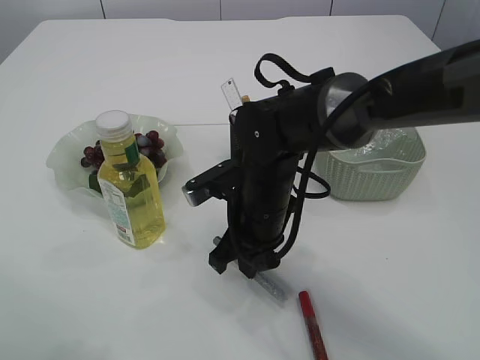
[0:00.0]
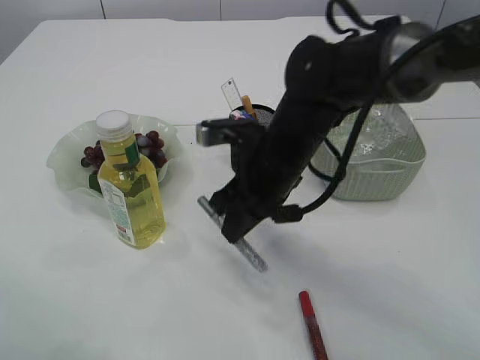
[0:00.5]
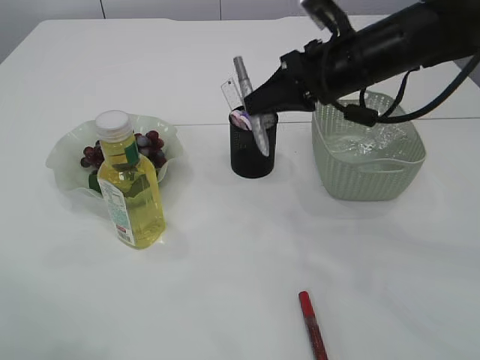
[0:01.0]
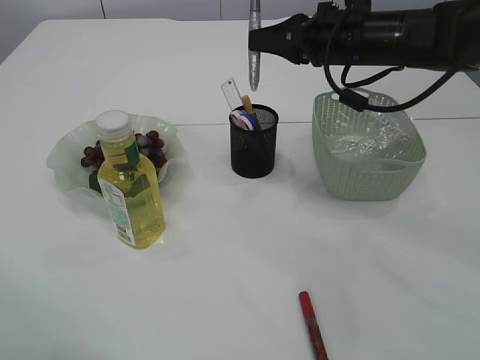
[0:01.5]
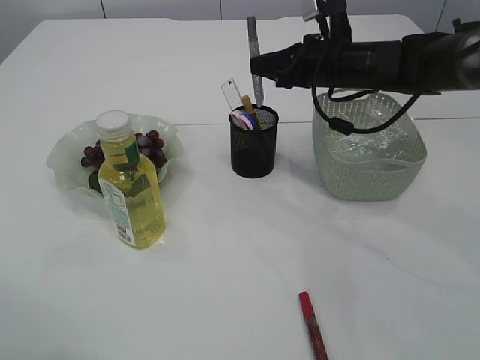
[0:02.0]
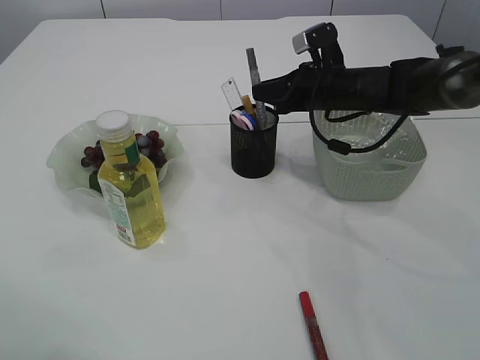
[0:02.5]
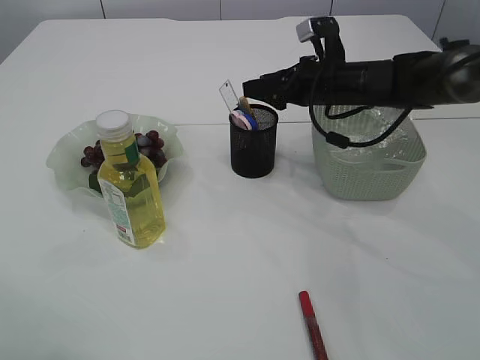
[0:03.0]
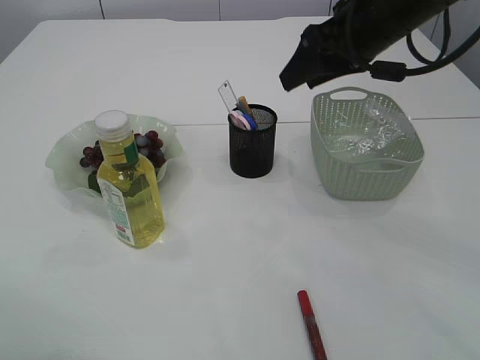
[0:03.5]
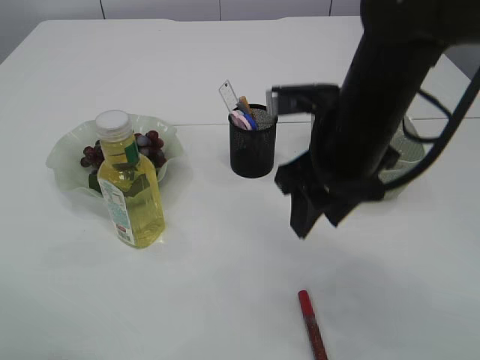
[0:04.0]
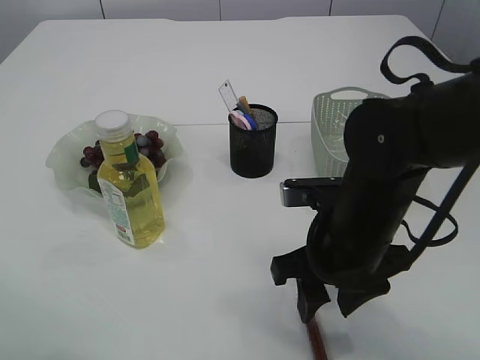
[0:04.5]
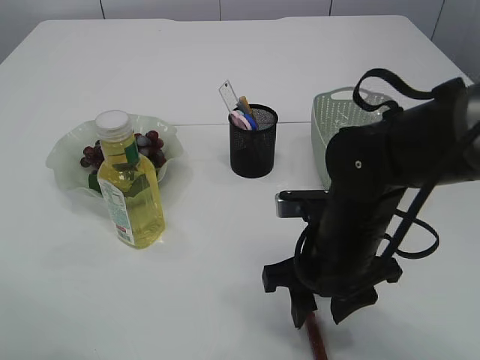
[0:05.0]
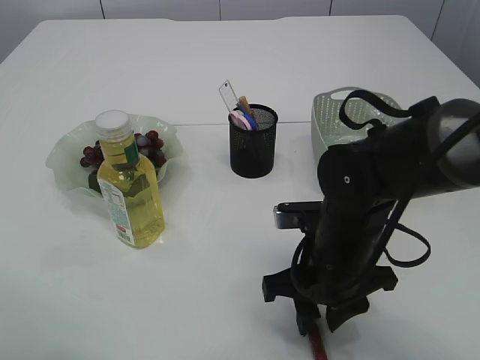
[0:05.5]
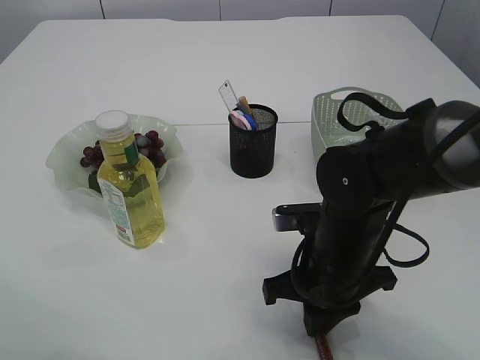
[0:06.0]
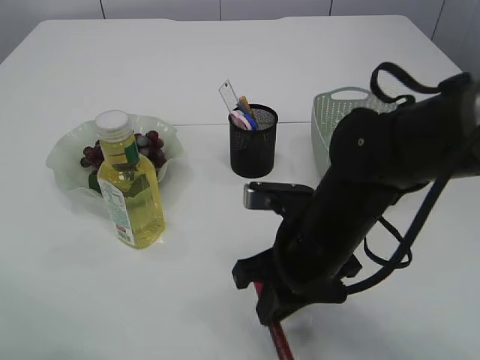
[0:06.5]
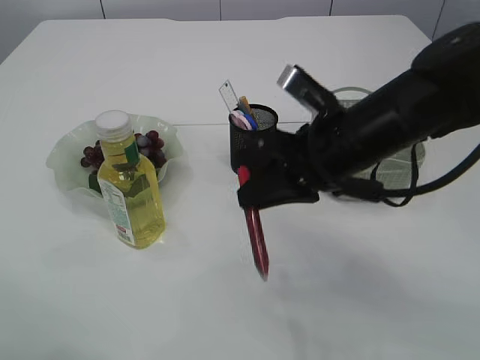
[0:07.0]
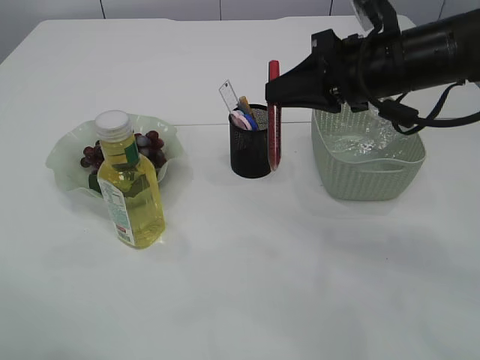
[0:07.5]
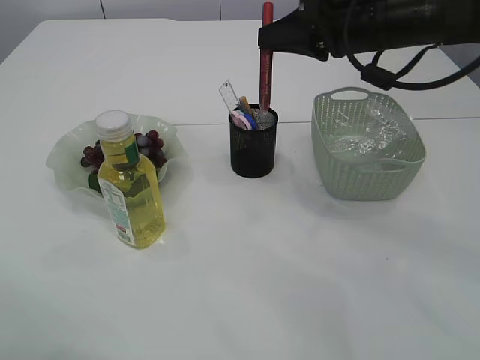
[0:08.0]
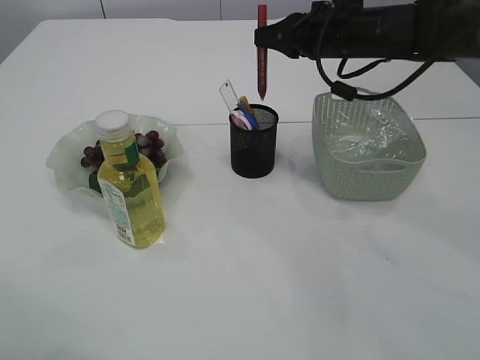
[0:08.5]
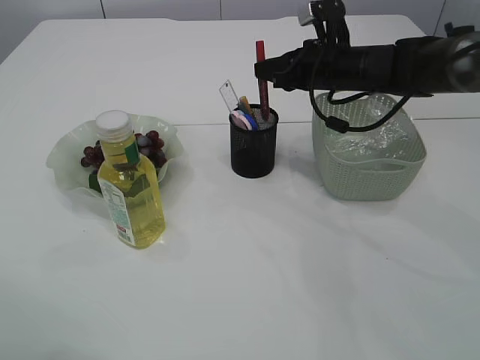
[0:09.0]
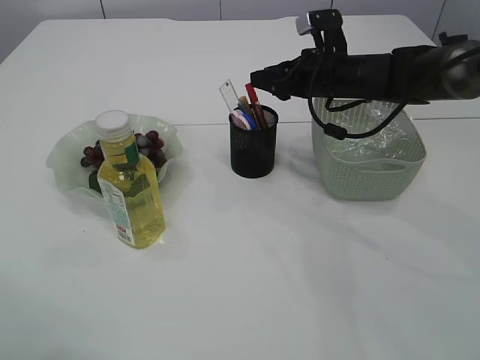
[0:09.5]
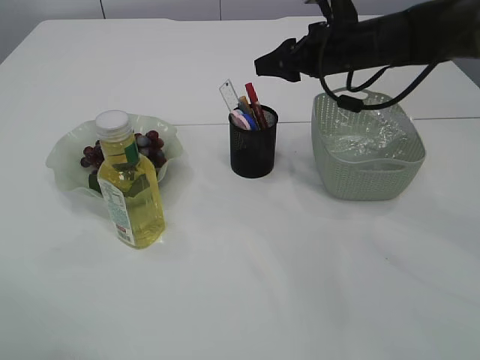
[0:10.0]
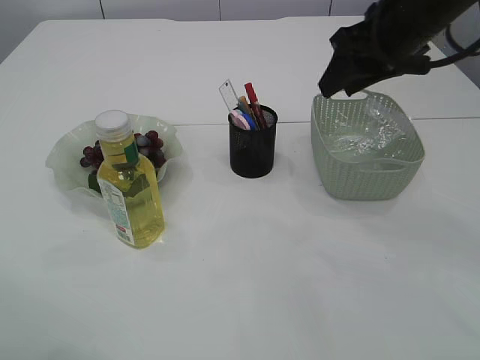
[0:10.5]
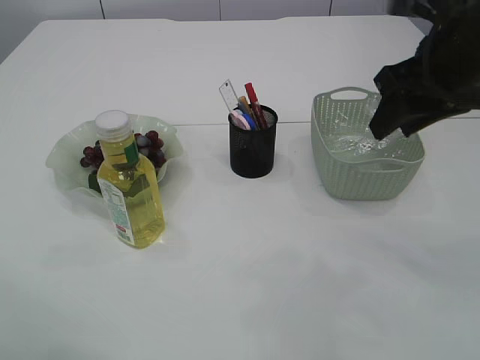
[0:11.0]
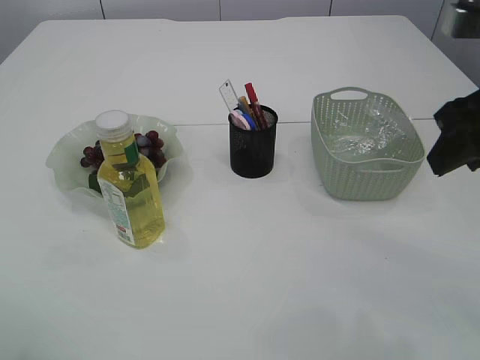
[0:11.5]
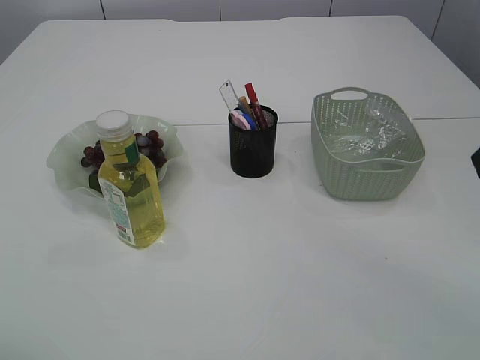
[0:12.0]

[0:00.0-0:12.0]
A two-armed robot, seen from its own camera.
Step, 0:01.0 to 0:03.0: place the silver glue into the pen holder.
Step, 0:03.5 to 0:06.5: pick up the red glue.
Step, 0:07.0 to 0:10.0: place the red glue into the pen holder.
0:00.0 to 0:02.0: The right gripper goes roughly 20 cm forward, to the right and upward.
0:02.0 to 0:04.0: The right gripper travels backward by roughly 15 cm, and opens.
0:04.0 to 0:06.0: The right gripper shifts approximately 15 cm downward, and closes its fingers.
0:06.0 to 0:08.0: The right gripper is displaced upward and forward by about 25 cm.
0:08.0 to 0:10.0: The right gripper heads forward and downward, covering roughly 10 cm, and opens its fingers.
0:10.0 to 0:12.0: The right gripper shifts about 30 cm backward. Meanwhile the left gripper moves about 5 cm, and opens up.

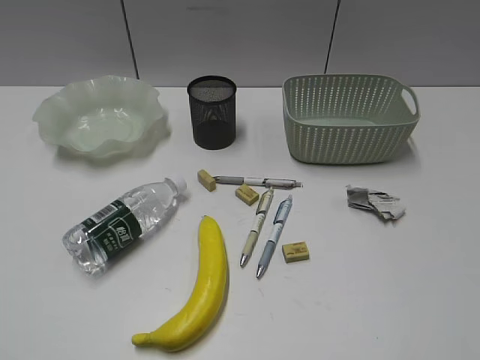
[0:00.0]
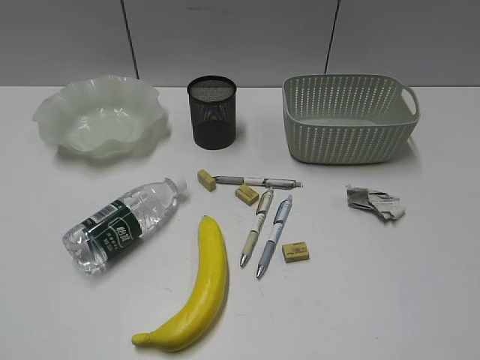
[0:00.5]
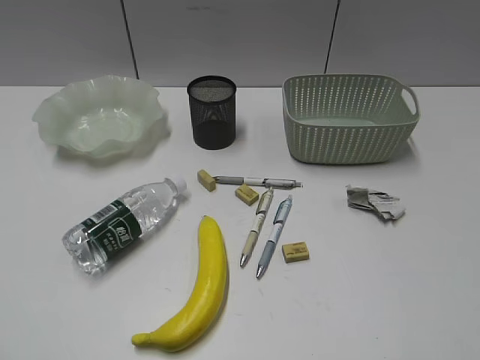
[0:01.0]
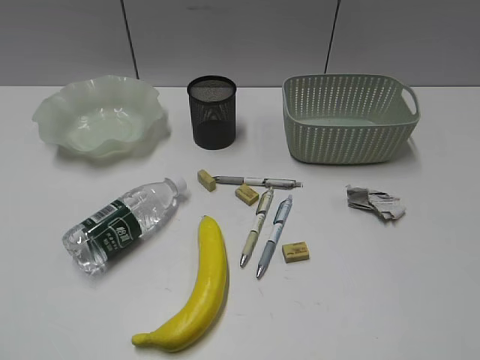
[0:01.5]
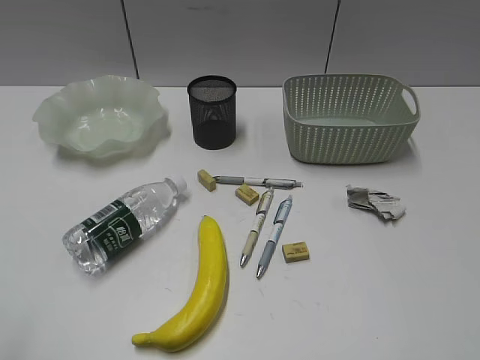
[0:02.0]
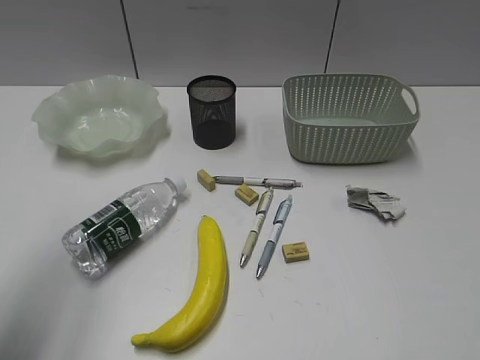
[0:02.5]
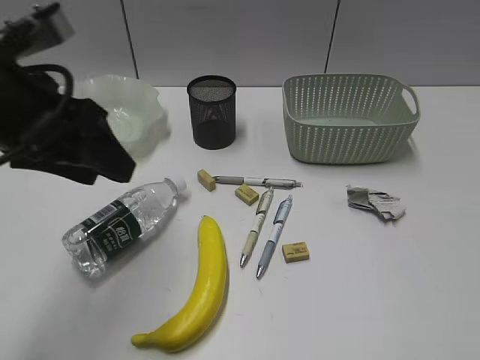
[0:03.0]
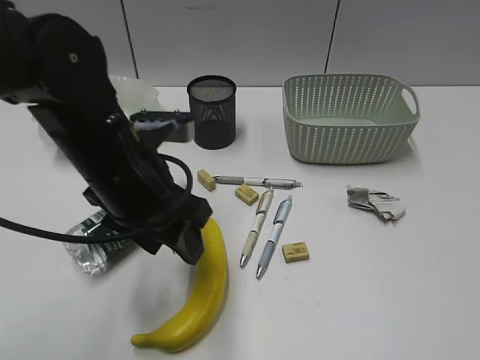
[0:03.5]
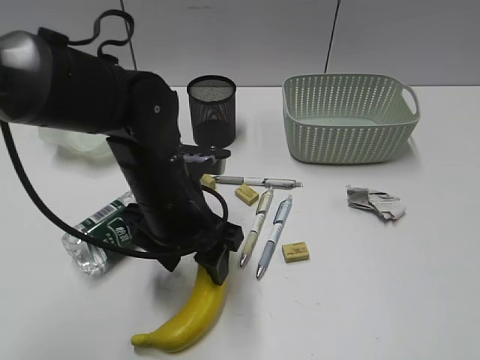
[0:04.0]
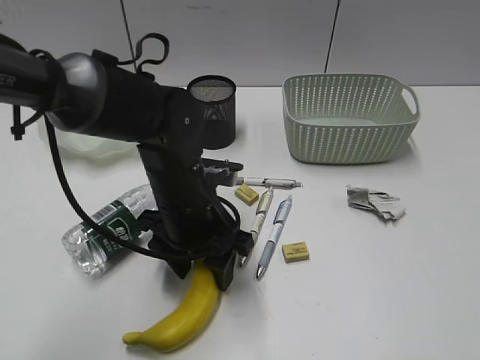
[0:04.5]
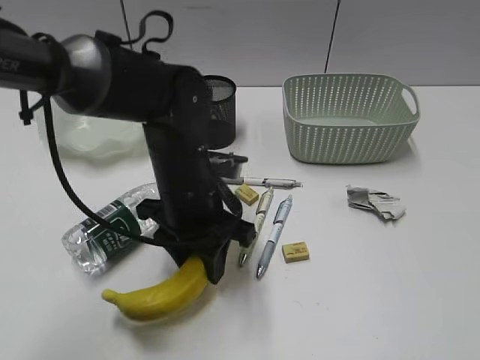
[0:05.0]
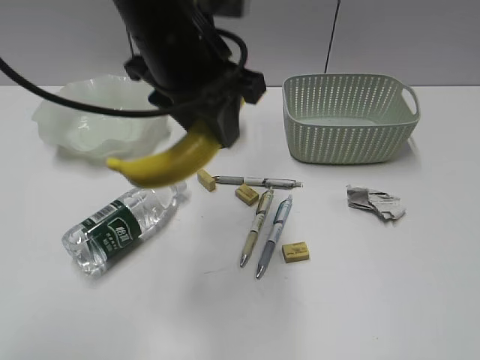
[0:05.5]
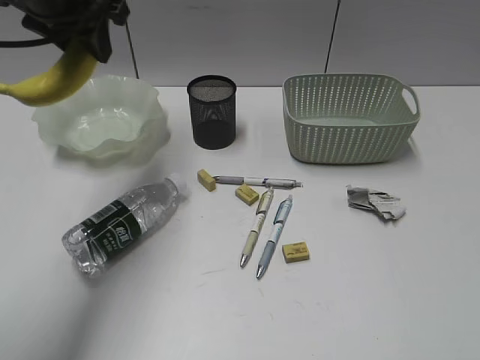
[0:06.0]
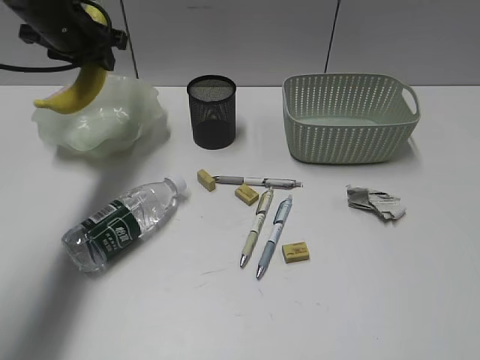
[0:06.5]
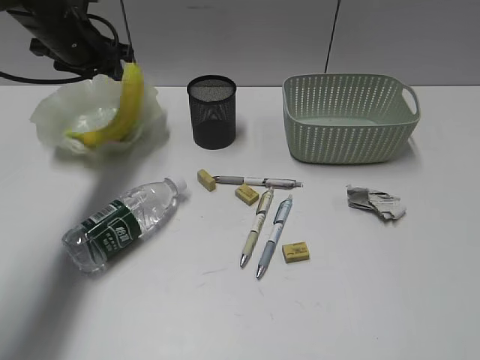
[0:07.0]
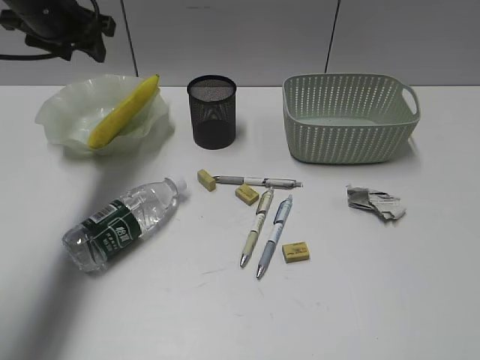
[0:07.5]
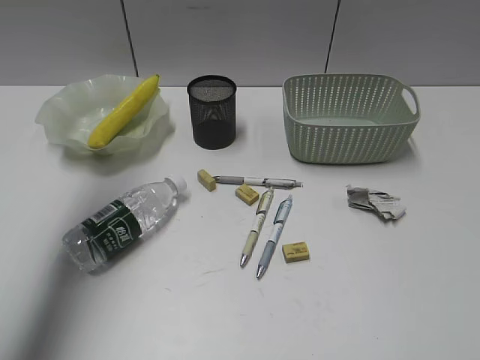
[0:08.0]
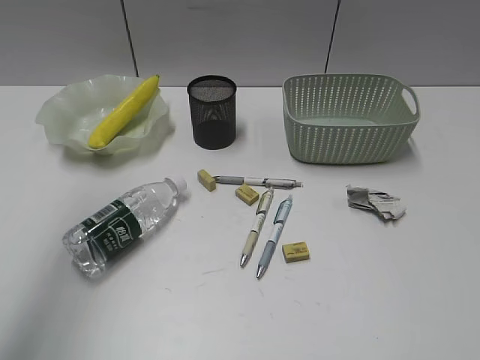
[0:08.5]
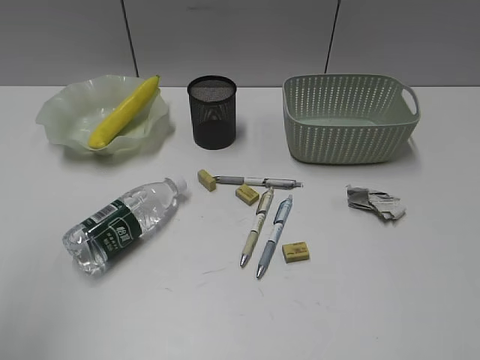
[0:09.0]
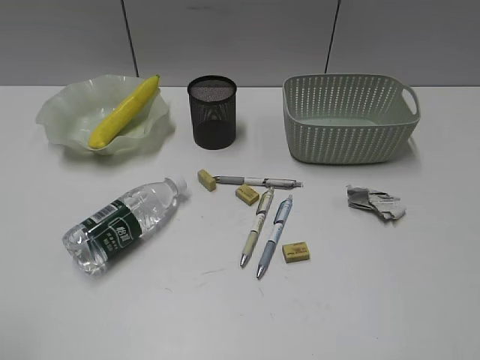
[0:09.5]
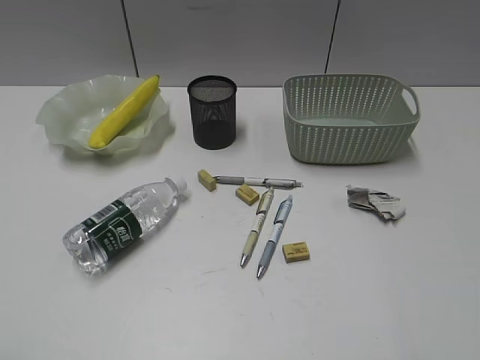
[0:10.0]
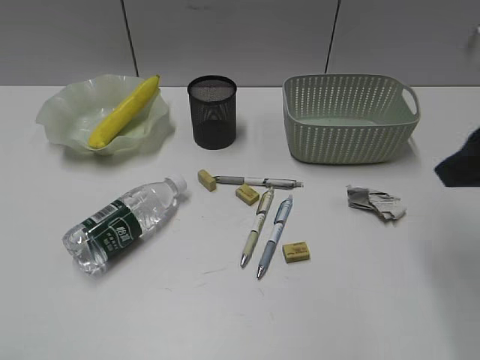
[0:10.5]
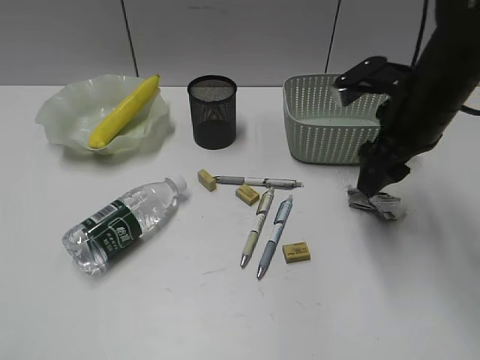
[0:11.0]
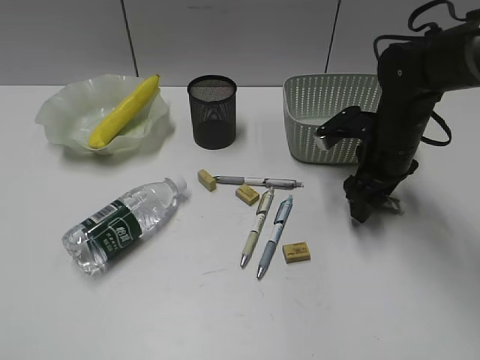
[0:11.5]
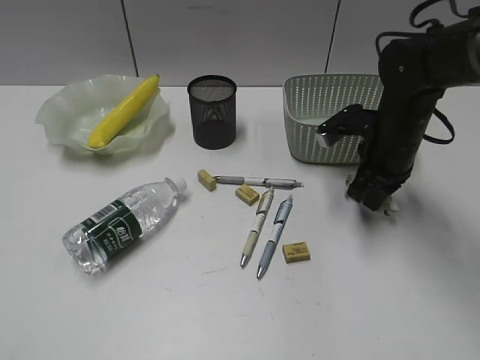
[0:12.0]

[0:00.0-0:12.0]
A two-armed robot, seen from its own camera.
Step, 0:02.0 to 0:04.5: Grasp the banana with left gripper.
Step, 0:05.0 to 0:07.0: Place the banana in the plate with left gripper.
Step, 0:07.5 to 0:11.5: Grasp the waste paper with right gripper.
0:02.0 to 0:04.0: The left gripper is displaced forward, to the right and downward by approximately 40 cm, and opens its fingers.
0:04.0 to 0:06.0: The left gripper goes roughly 25 cm upward, forward and to the left, and closes its fingers.
0:06.0 to 0:08.0: The left gripper goes about 10 cm to the left and upward.
0:08.0 to 0:10.0: The left gripper is displaced backward by approximately 35 cm.
0:10.0 to 0:12.0: The right gripper shifts some 35 cm forward and downward, and closes its fingers.

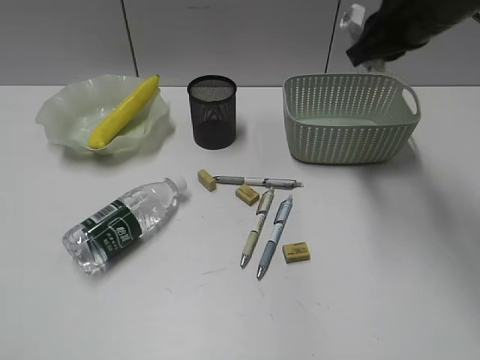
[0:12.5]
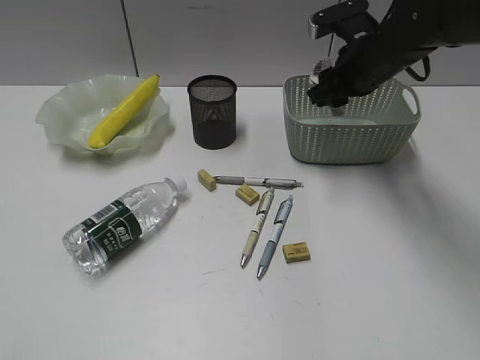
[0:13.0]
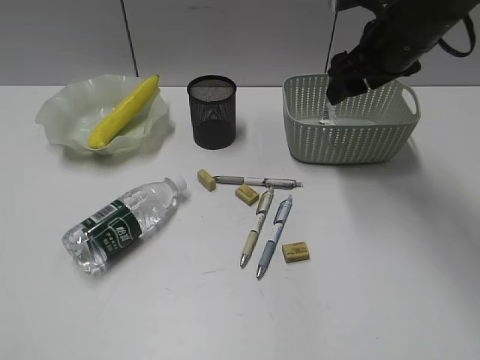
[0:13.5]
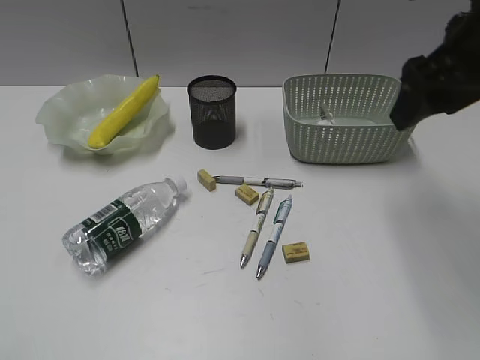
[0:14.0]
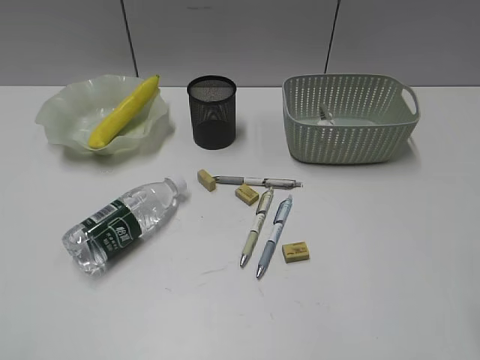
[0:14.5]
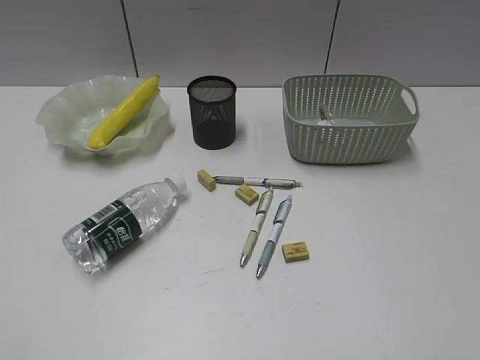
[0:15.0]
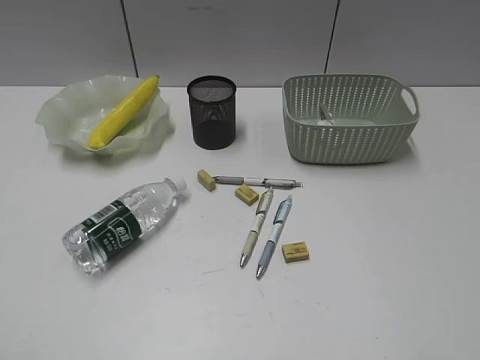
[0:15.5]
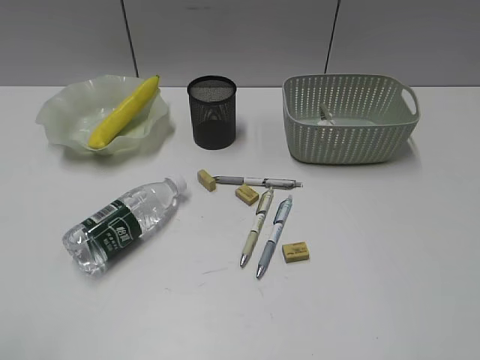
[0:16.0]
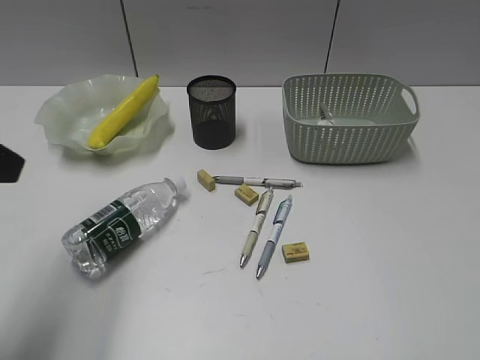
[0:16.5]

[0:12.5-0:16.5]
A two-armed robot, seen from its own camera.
0:12.5 to 0:14.5: The right gripper moves backward, some 25 cm, and opens its fingers.
0:14.5 to 0:16.5: The left gripper goes approximately 20 cm forward.
